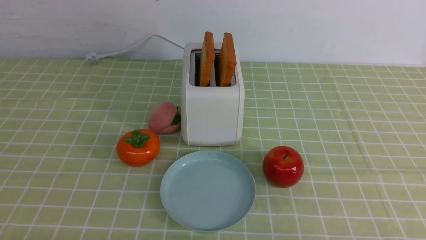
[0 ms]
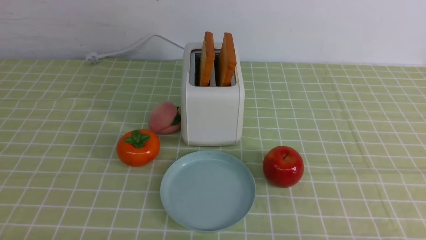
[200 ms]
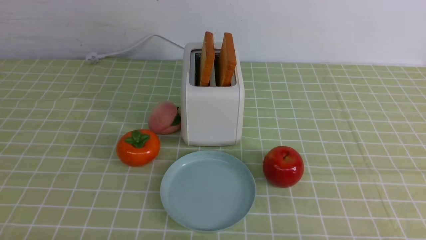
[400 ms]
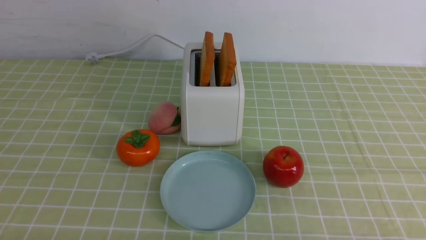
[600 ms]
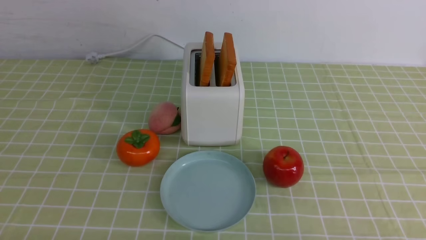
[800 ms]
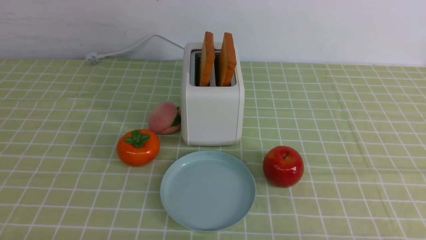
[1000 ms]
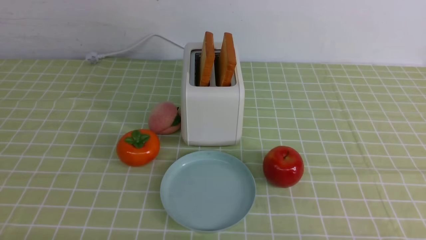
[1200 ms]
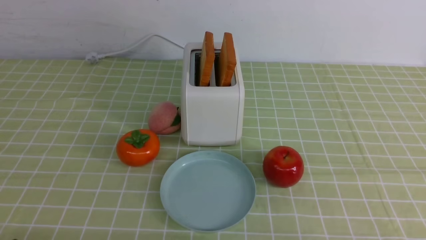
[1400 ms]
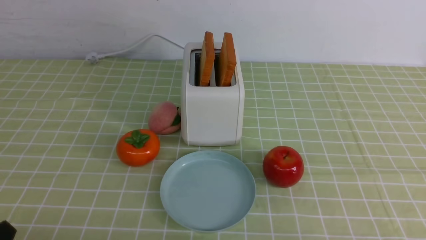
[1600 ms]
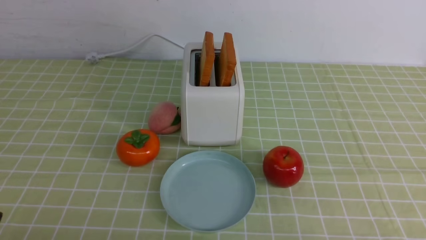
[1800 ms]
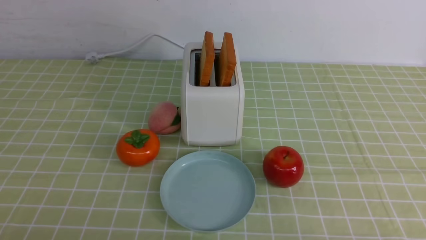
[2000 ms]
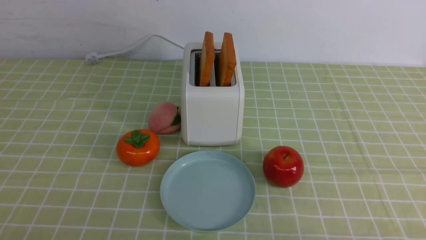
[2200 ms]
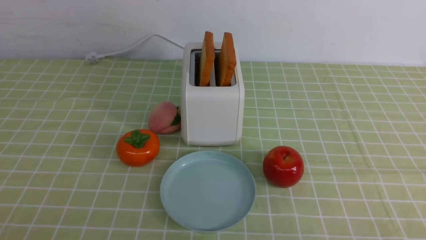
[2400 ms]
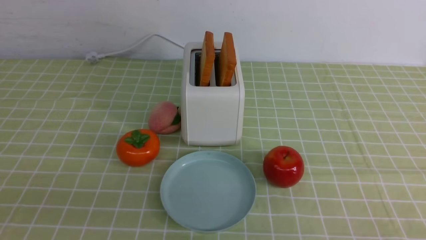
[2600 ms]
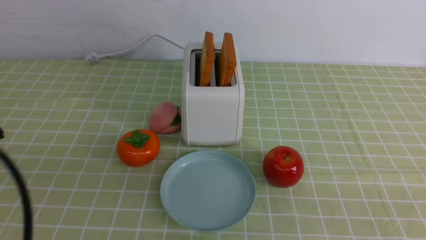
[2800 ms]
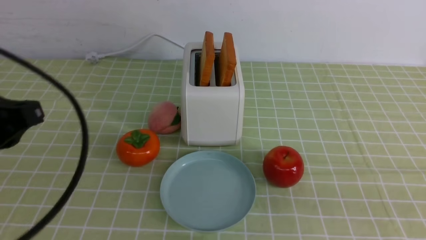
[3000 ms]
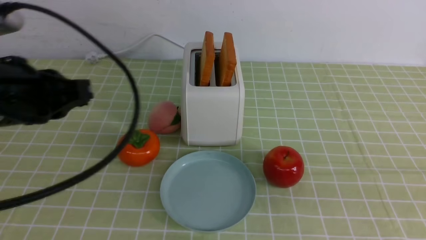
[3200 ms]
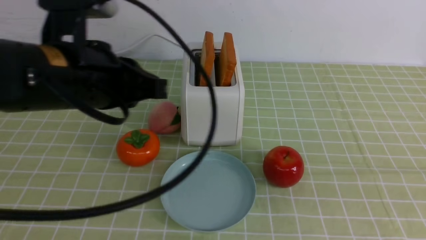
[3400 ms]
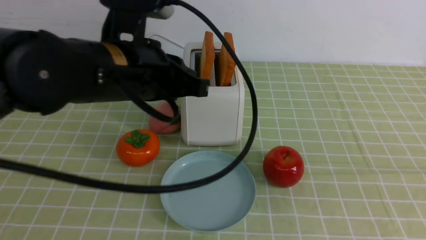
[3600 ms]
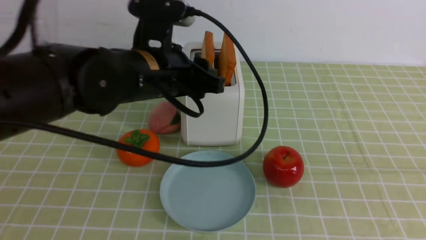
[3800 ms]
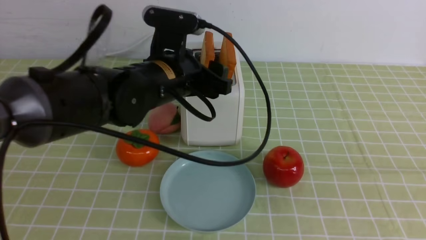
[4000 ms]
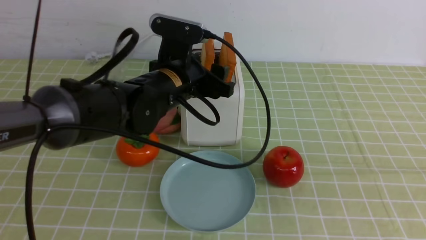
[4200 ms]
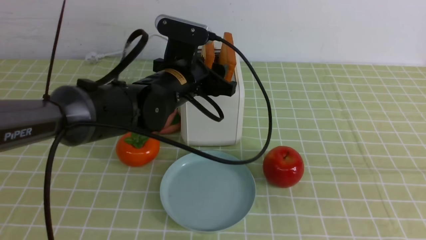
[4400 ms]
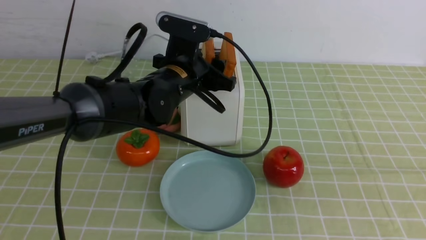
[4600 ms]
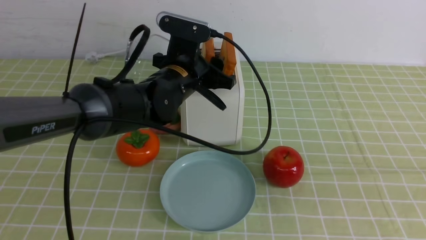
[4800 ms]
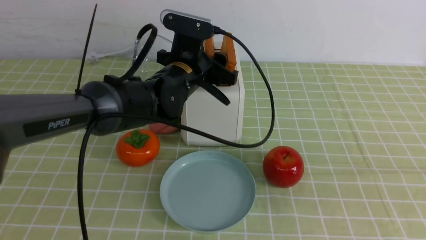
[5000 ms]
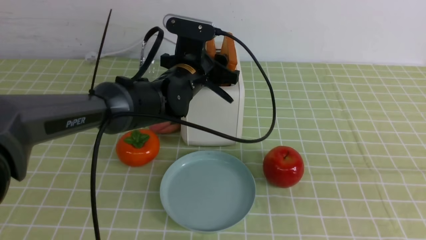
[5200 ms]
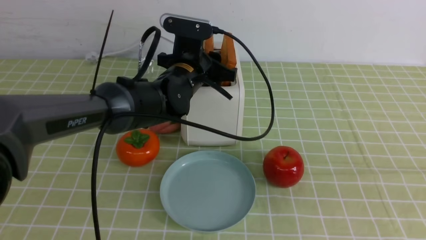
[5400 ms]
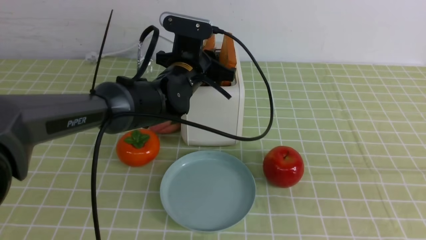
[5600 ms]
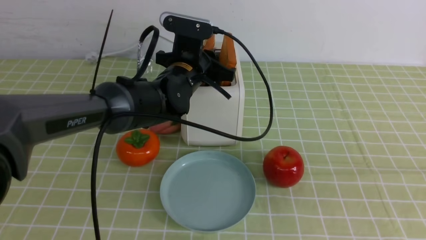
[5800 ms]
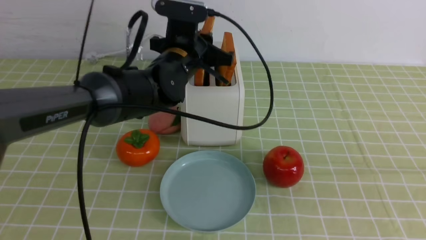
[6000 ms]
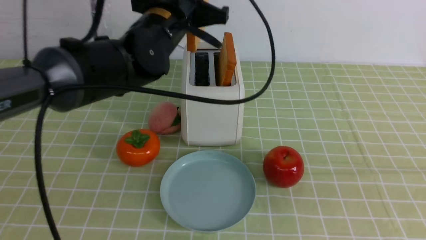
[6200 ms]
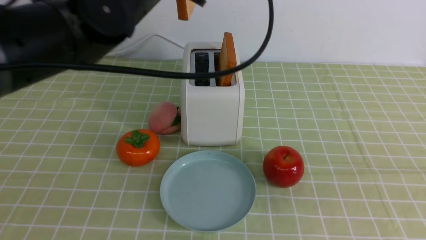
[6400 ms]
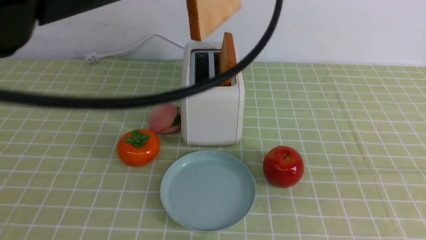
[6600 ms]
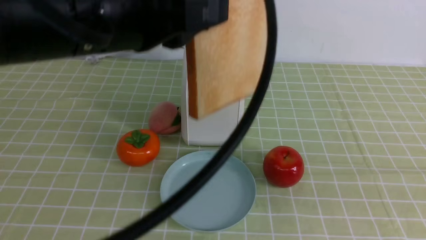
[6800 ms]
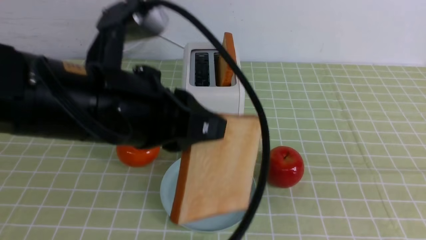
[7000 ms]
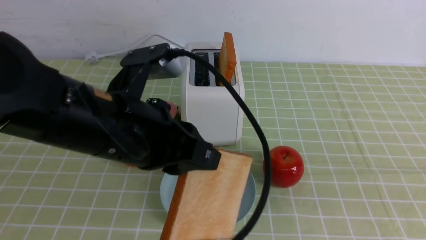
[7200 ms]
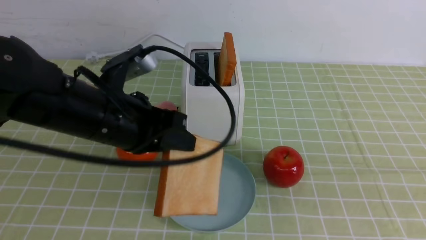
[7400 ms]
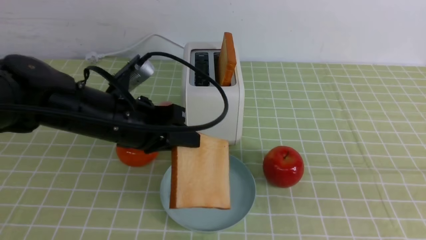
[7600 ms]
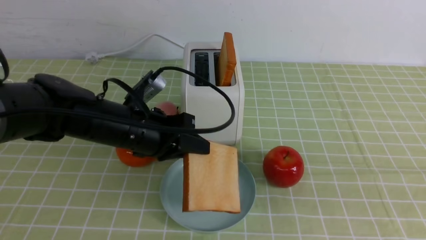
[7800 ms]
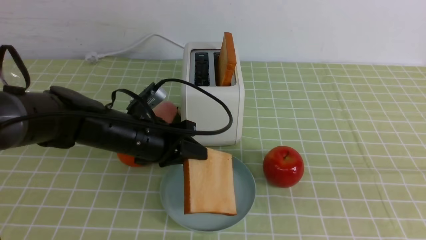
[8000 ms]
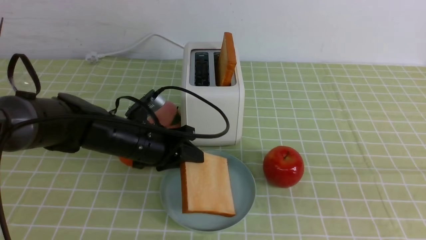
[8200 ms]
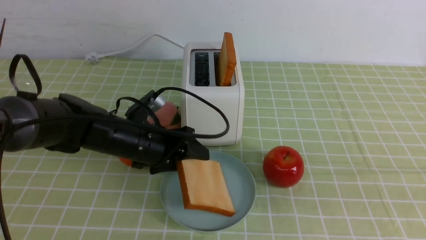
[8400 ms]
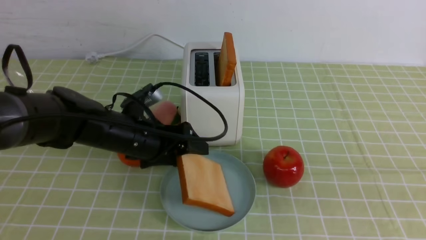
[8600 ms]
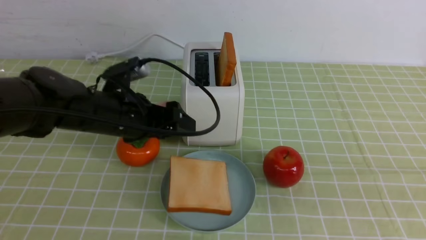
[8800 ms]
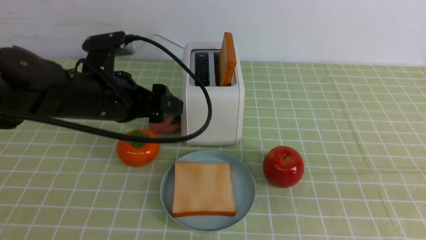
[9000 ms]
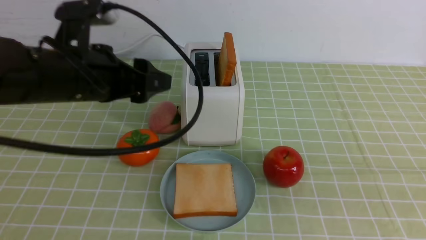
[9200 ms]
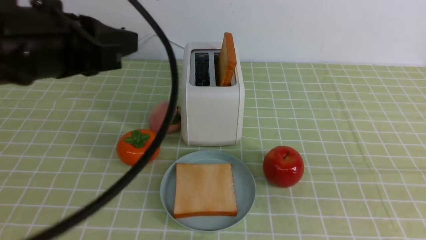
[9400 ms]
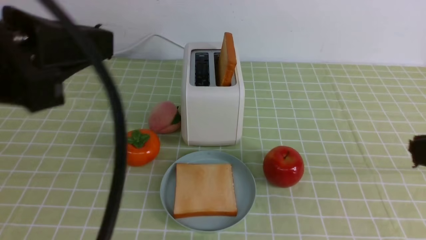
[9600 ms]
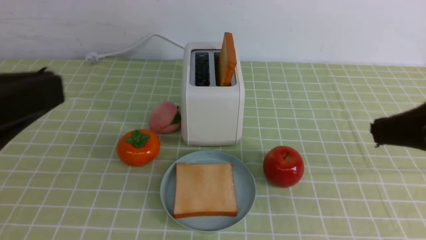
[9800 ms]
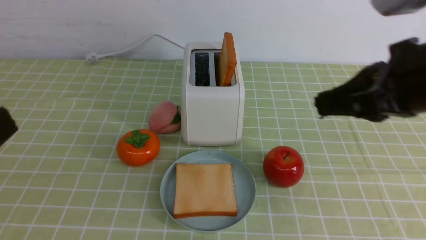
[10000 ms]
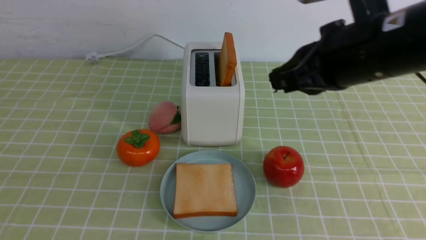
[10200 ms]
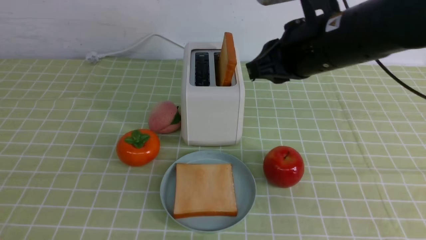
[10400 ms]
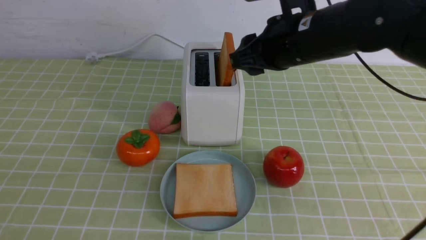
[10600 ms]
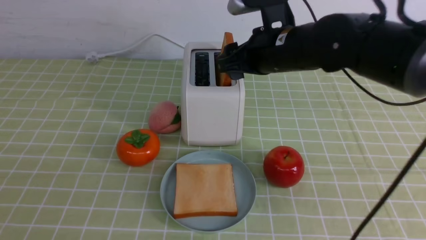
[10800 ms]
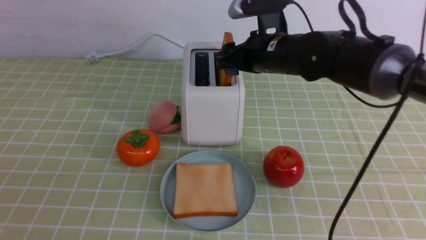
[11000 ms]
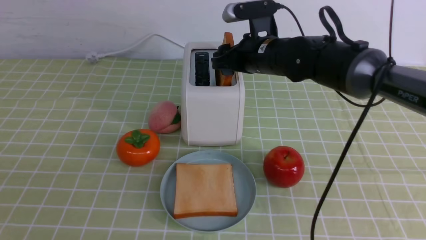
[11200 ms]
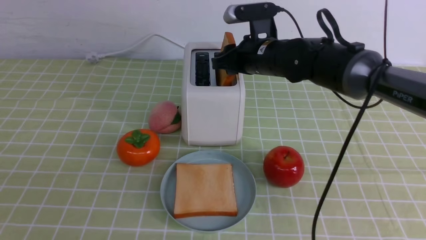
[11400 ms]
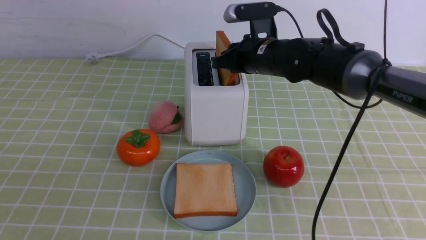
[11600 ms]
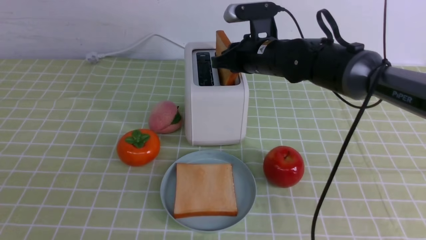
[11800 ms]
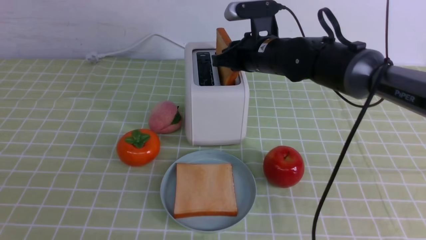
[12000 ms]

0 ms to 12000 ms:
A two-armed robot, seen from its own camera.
Task of the whole recording: take toasted bread from bread machine on green coffee tablecloth place on plate.
Step, 0 ms to 6000 ms: use the left arm to take out a slice of bread.
Step, 6200 ms to 8800 ms: use the left arm to put a slice of bread into the empty plate.
1600 ms to 3000 ms: The left gripper shifts some 20 cm upward and forward, and closes its fingers.
3000 ms to 4400 ms: The right gripper goes some 10 cm upward. Meanwhile the left gripper moves forward and to the right, some 25 cm, and opens.
4400 ms to 6000 ms: The left gripper closes its fingers.
6000 ms to 7600 ms: The left gripper travels backward and to the left by some 15 cm.
7600 ms to 9000 ms: The left gripper reaches some 5 cm downward, then returns, and opens.
9000 ms to 10400 ms: The left gripper is displaced backward by approximately 25 cm, and closes. Meanwhile the right gripper goes about 30 cm forward and to the left, and opens up.
10400 ms to 12000 ms: The right gripper travels forward and downward by about 15 cm, and opens and closes again.

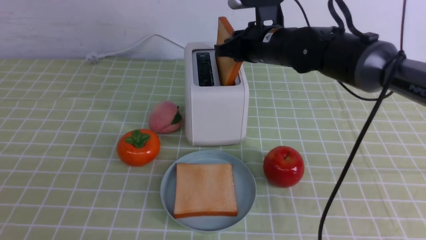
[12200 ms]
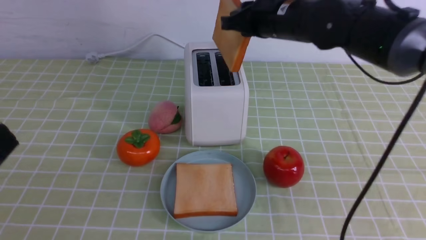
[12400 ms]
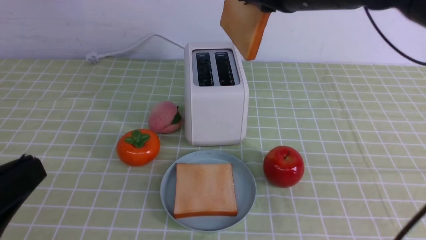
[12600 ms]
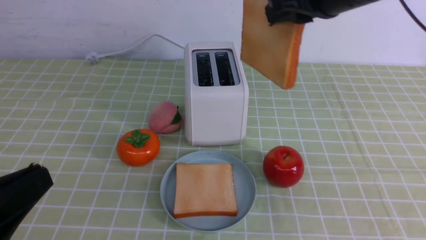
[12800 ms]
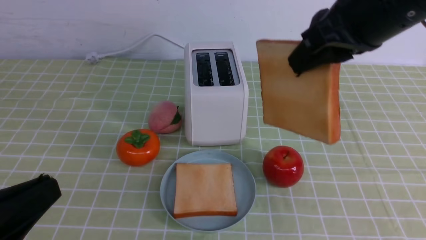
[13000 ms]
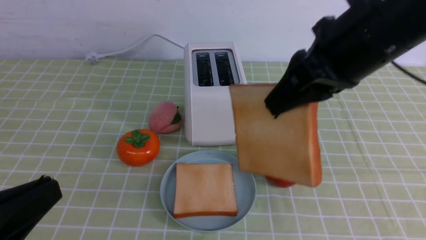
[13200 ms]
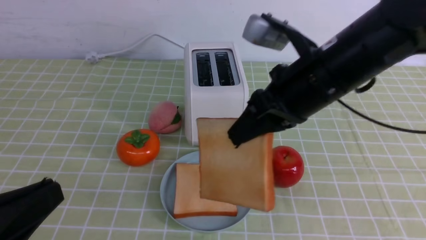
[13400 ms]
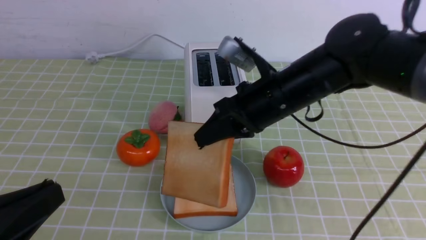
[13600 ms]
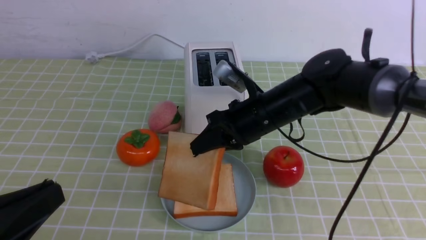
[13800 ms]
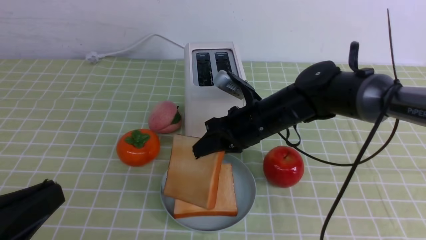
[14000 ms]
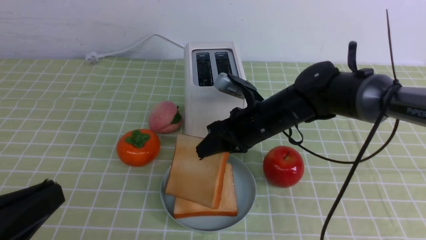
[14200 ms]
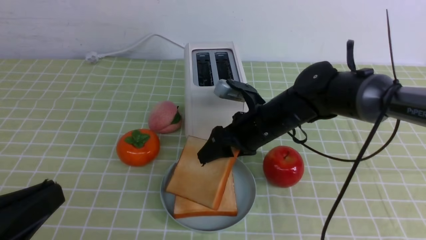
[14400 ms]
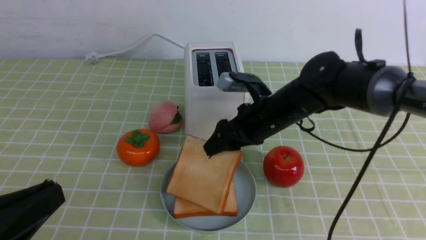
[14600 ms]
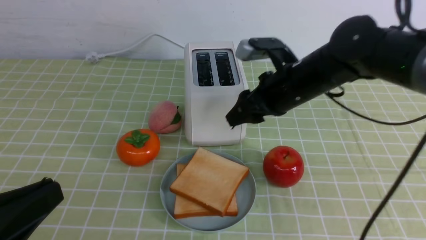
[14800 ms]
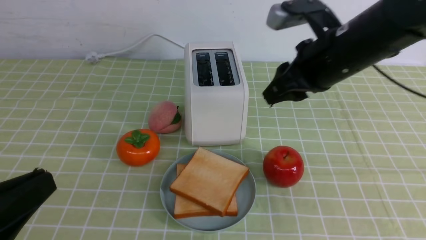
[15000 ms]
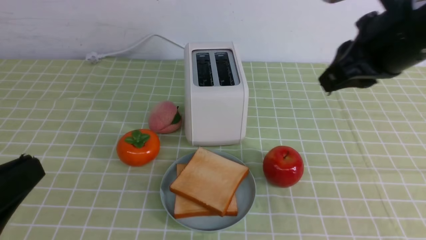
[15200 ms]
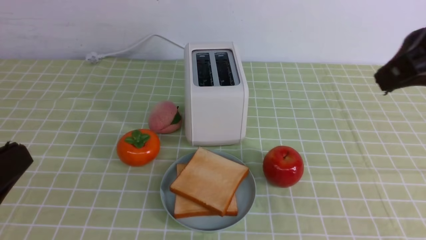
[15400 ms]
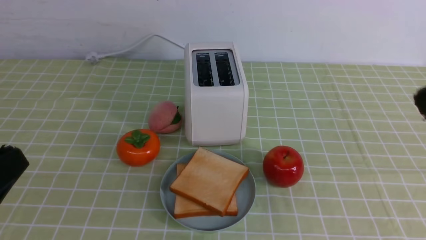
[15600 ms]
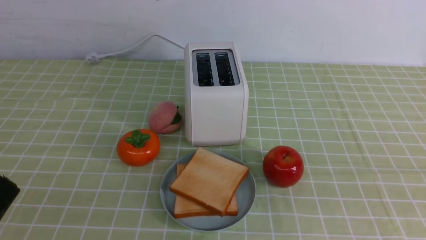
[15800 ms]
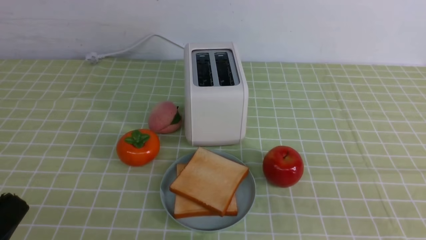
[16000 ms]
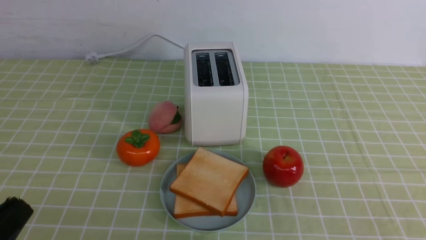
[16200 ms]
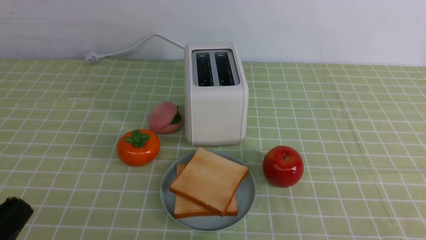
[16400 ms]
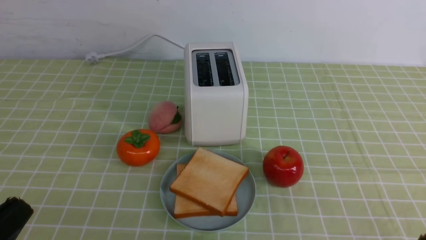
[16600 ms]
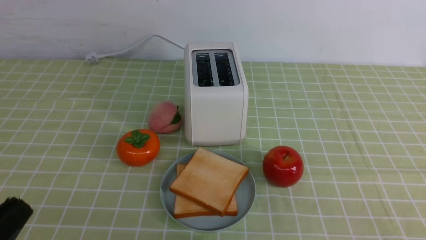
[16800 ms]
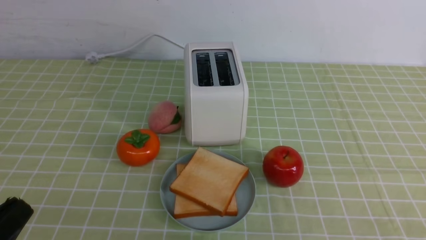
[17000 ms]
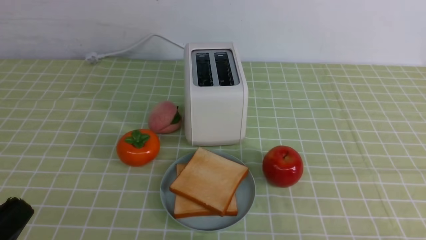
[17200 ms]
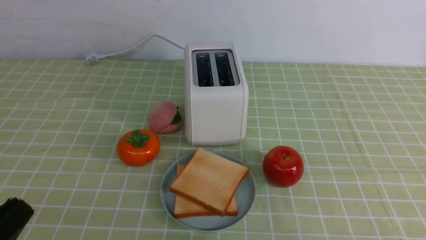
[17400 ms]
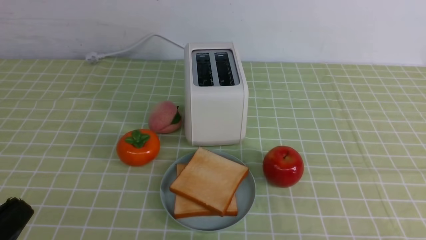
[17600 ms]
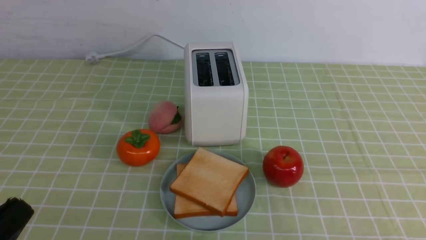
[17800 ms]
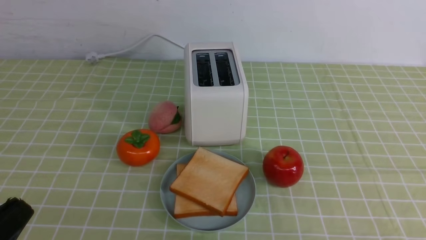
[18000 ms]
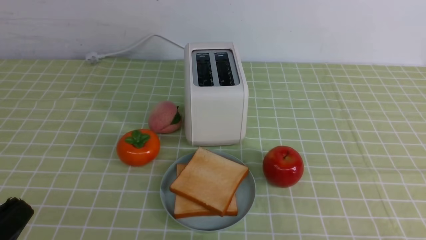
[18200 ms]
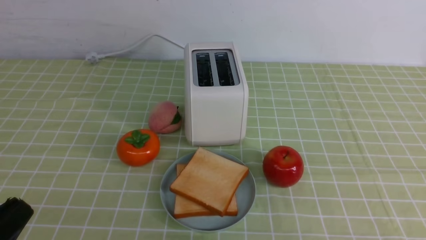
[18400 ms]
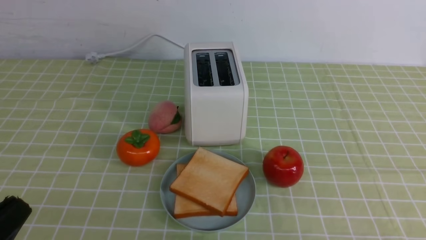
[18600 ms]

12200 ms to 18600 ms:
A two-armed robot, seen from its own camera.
Task of the whole recording: take toasted bread from bread machine on green coffee tablecloth place on plate.
Step, 12600 ms to 15400 ms: use the right arm to put a slice of bread into the plate.
12200 ms to 13800 ms: The right gripper travels backward and downward by approximately 10 cm, while the left gripper moves some 5 cm.
13800 ms to 15400 ms: The right gripper heads upward, backward and to the right, covering approximately 30 cm, and opens, then closes again.
15400 ms to 17000 ms: The left gripper travels downward by about 5 cm, while the right gripper shifts some 30 cm downward and backward.
